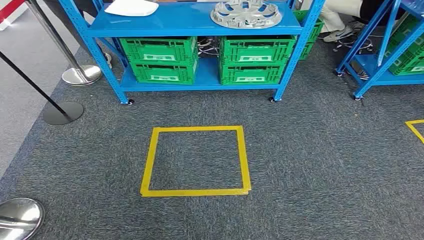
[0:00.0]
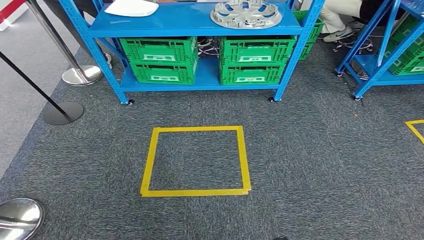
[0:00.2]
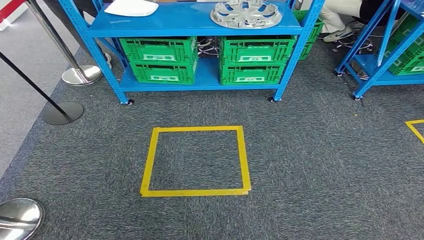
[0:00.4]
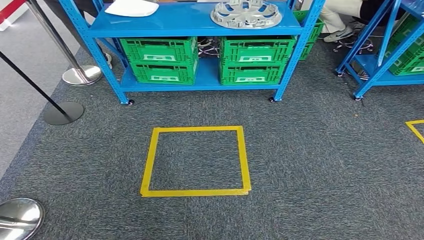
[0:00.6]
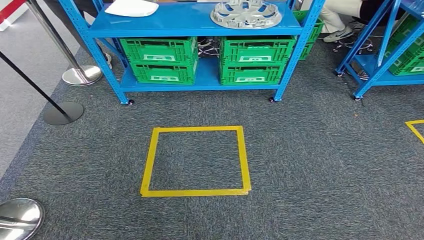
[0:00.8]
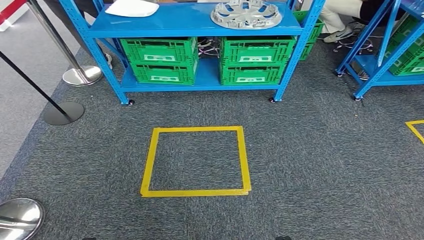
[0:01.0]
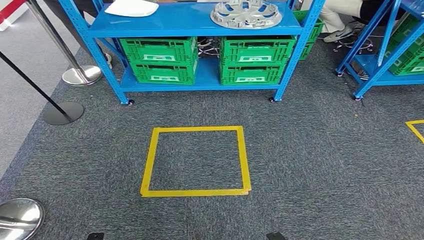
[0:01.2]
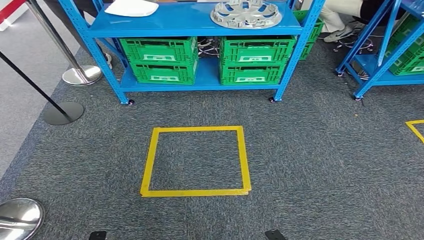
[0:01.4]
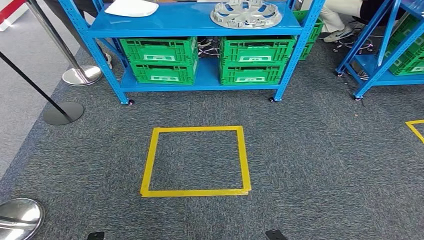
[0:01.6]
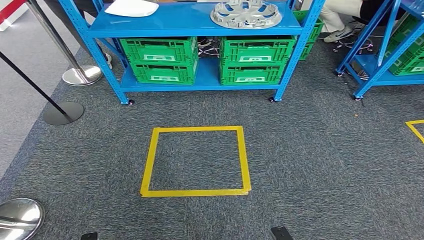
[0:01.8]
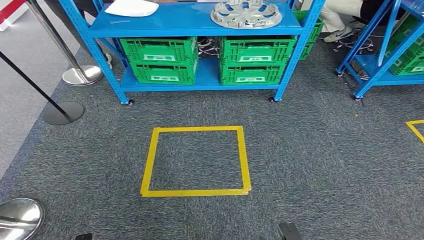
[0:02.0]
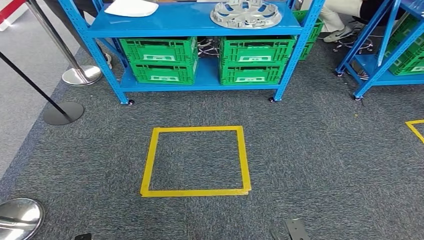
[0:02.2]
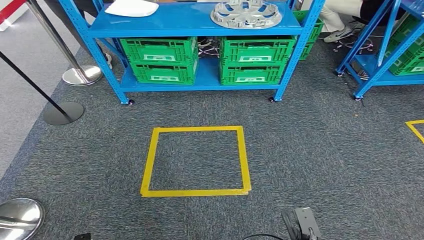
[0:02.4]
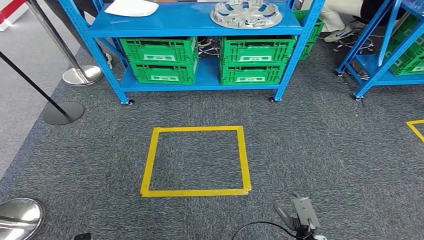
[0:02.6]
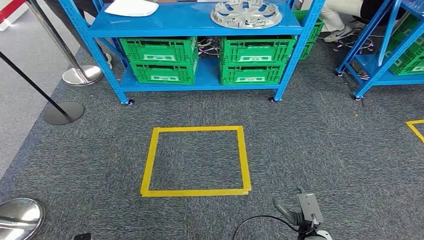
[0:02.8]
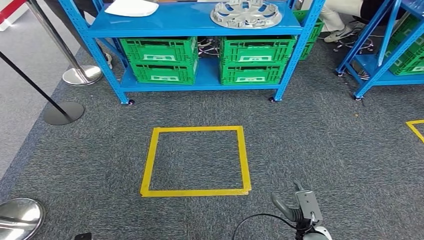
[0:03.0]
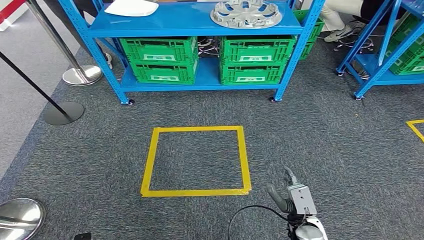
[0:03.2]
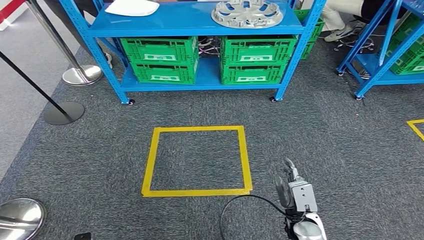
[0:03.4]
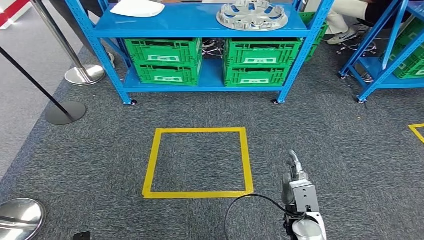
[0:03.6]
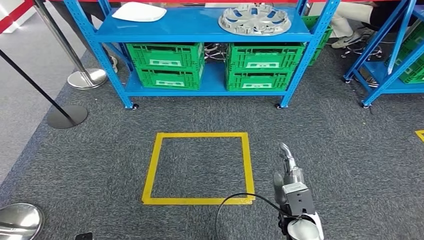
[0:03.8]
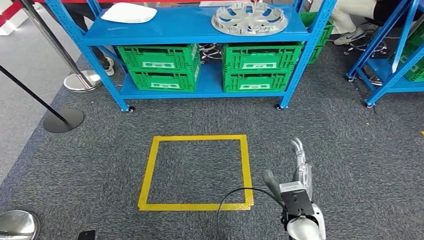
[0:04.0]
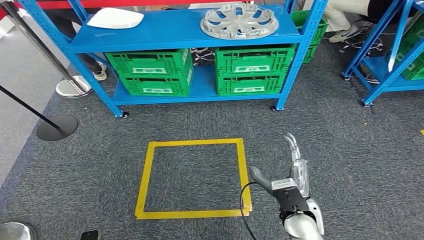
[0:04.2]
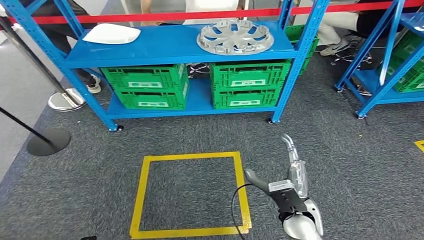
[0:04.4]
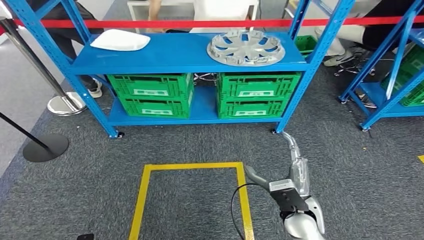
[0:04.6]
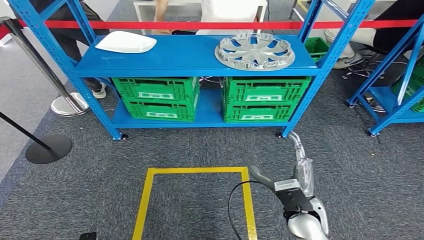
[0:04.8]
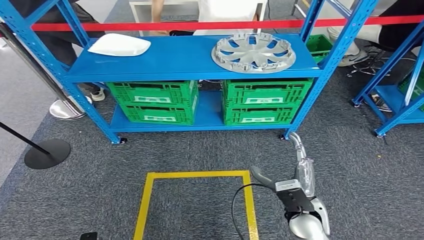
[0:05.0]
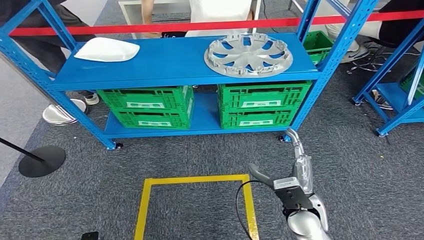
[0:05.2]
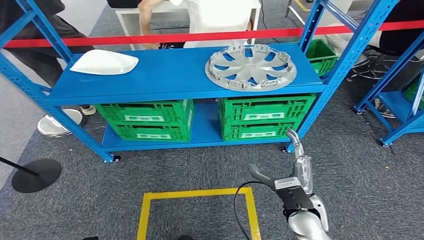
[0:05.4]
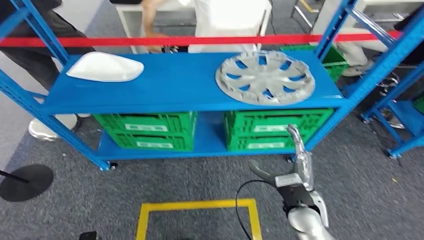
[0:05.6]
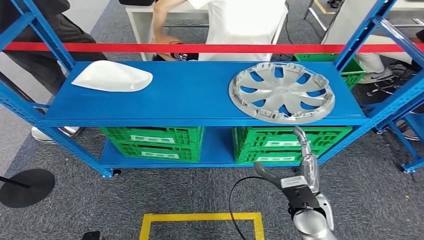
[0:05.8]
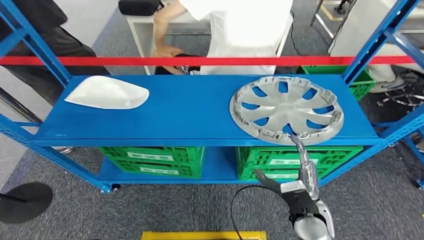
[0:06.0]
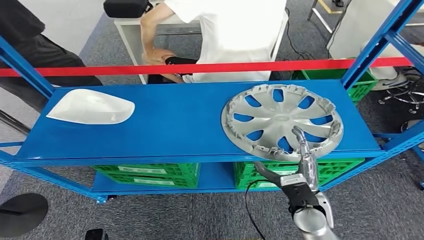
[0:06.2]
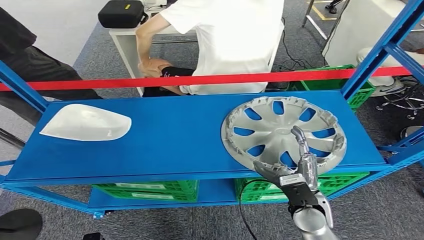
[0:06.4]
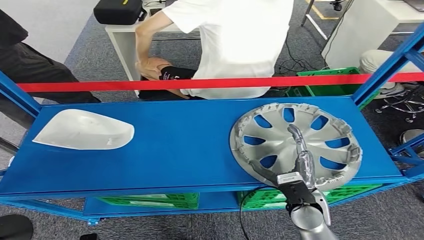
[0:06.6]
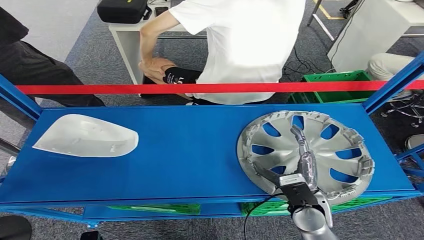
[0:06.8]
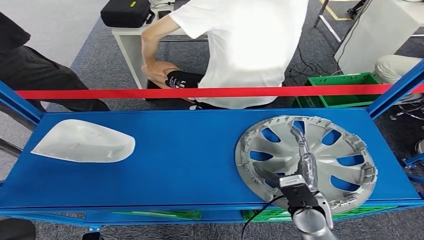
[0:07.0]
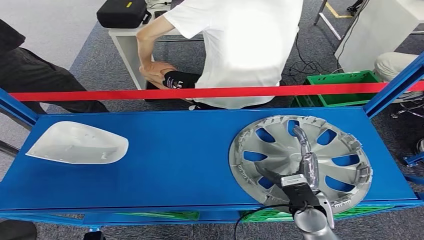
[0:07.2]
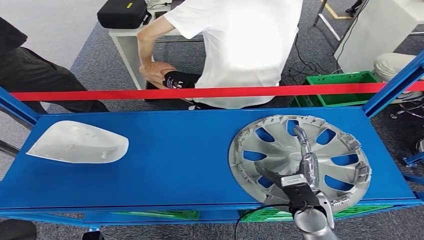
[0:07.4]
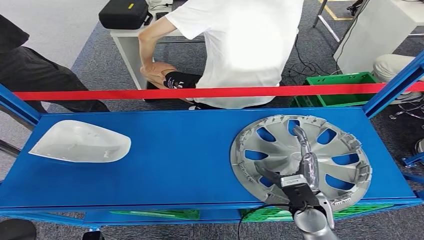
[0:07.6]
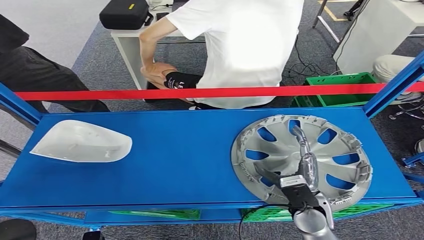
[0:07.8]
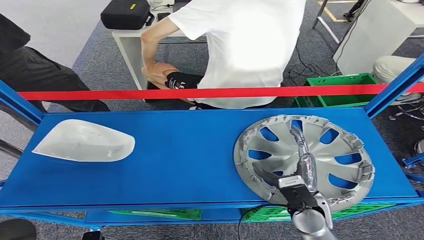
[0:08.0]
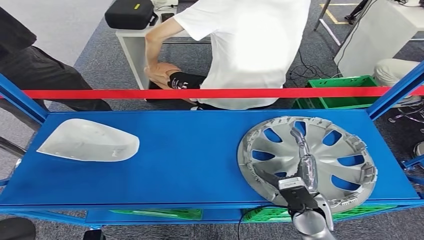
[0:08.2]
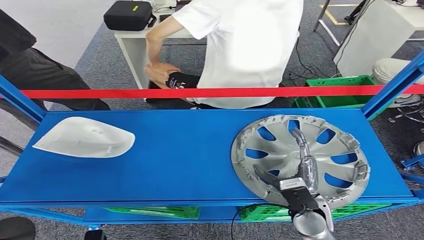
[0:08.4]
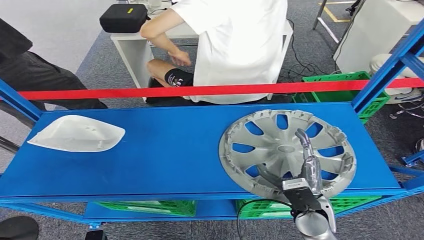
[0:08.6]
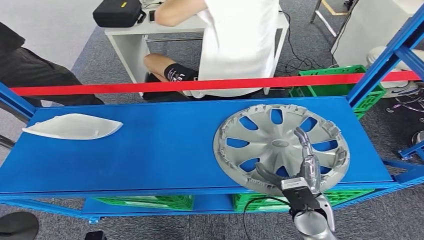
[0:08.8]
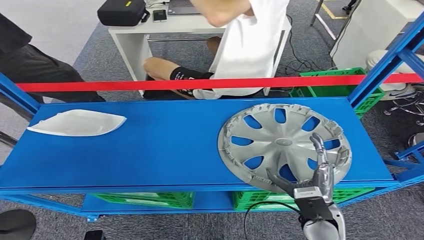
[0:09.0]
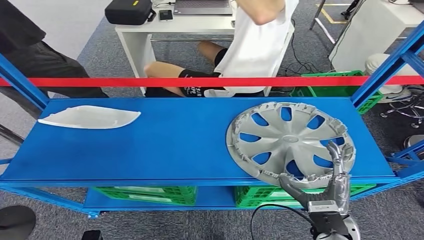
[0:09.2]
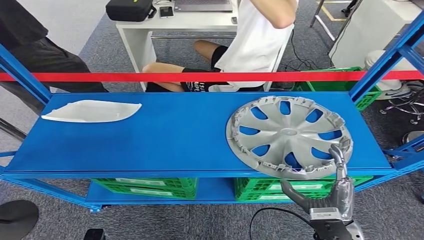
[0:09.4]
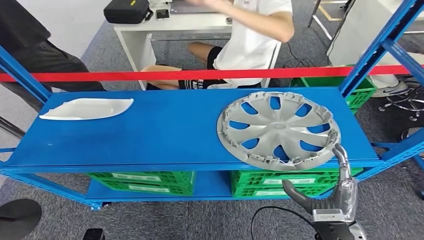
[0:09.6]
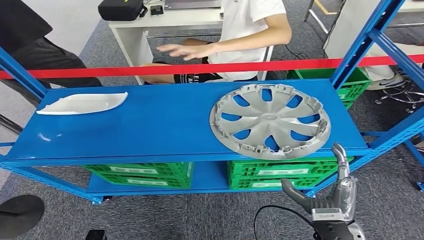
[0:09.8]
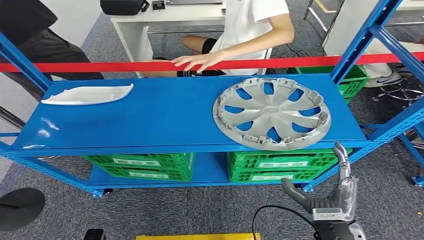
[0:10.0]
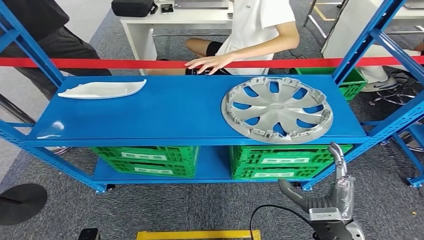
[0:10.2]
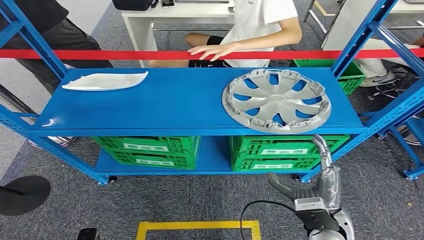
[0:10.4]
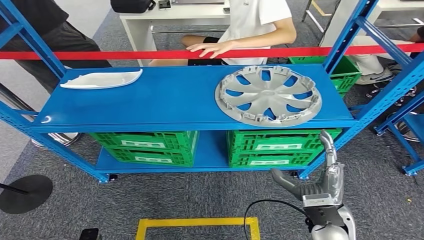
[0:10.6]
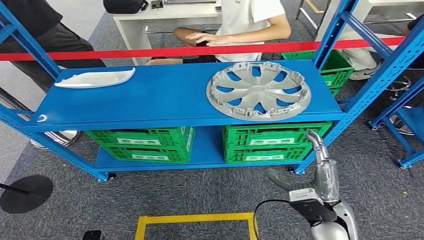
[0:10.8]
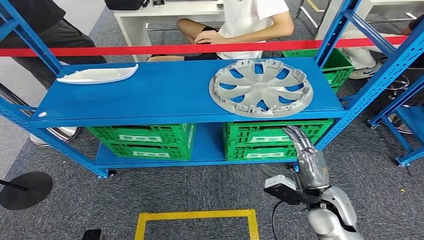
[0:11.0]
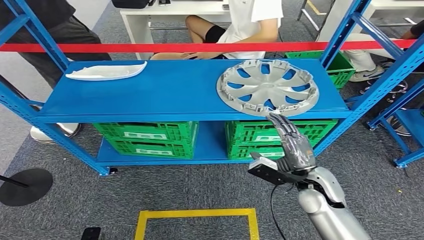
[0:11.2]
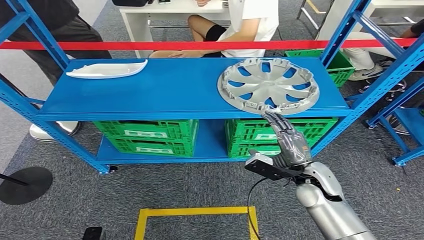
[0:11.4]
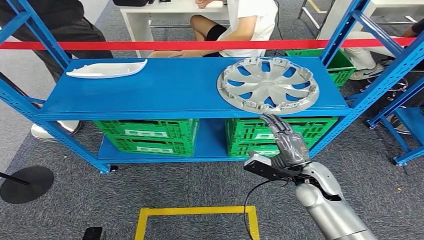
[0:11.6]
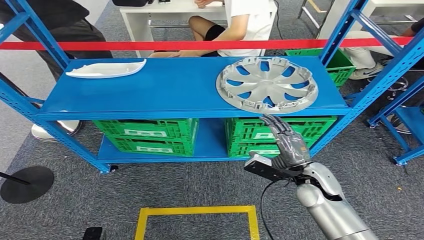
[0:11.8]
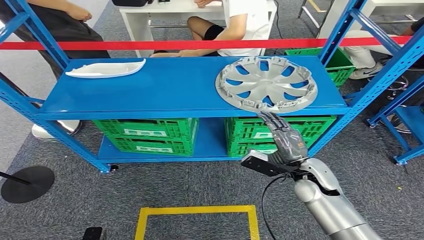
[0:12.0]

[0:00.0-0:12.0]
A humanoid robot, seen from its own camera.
0:01.6 to 0:03.0: The right hand travels forward by some 10 cm.

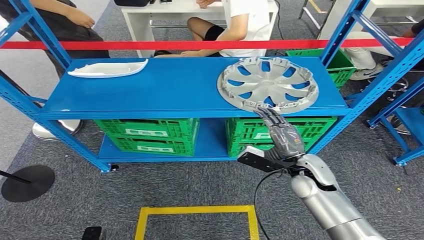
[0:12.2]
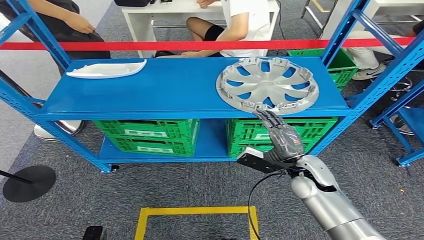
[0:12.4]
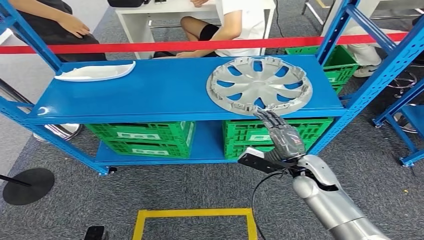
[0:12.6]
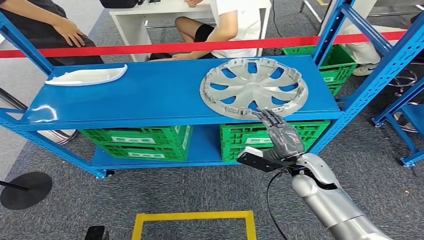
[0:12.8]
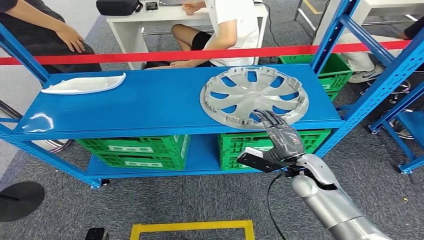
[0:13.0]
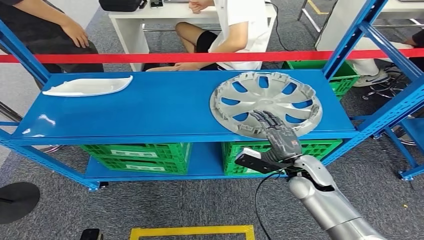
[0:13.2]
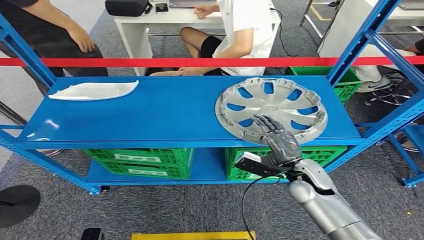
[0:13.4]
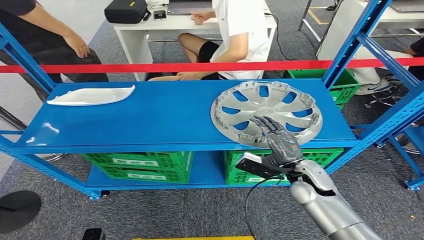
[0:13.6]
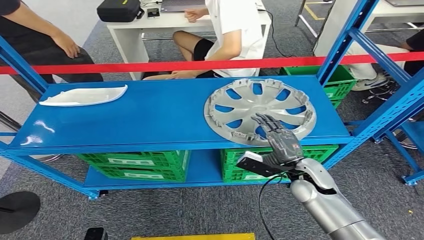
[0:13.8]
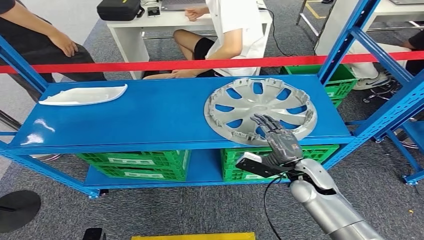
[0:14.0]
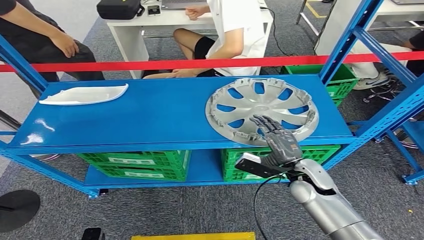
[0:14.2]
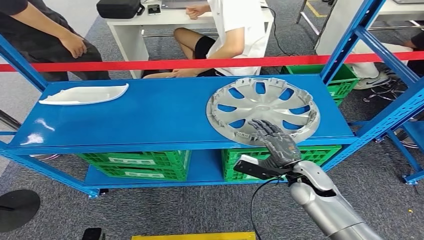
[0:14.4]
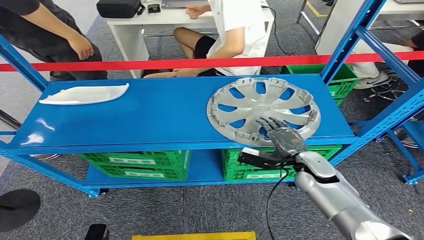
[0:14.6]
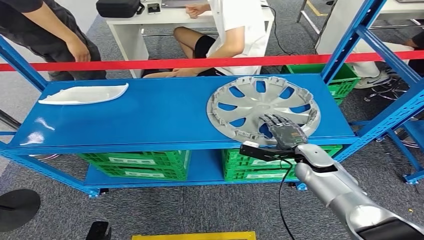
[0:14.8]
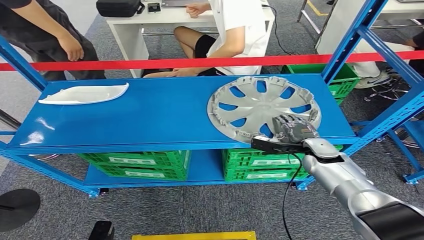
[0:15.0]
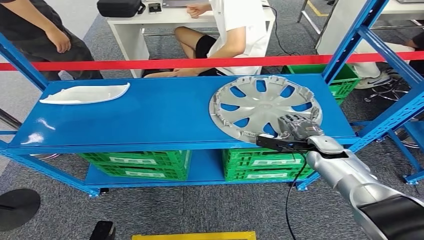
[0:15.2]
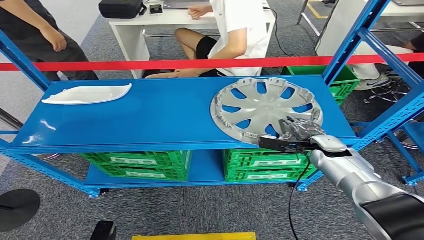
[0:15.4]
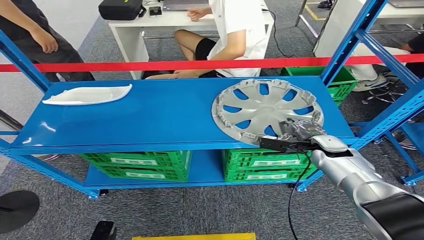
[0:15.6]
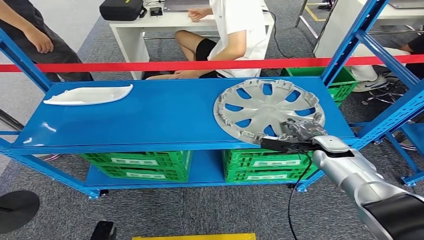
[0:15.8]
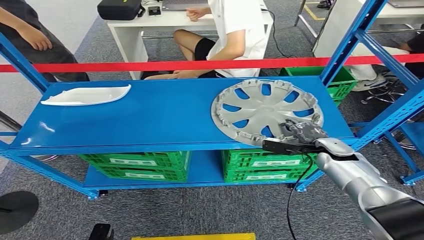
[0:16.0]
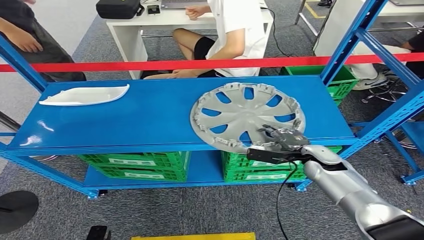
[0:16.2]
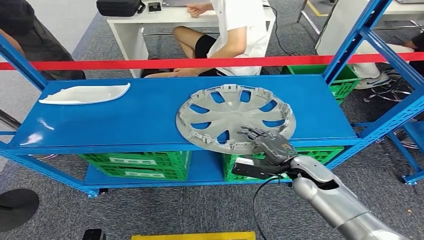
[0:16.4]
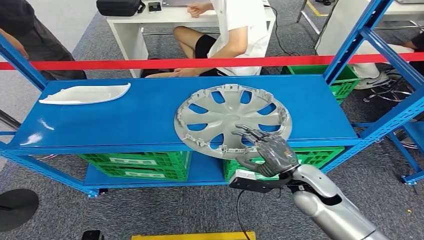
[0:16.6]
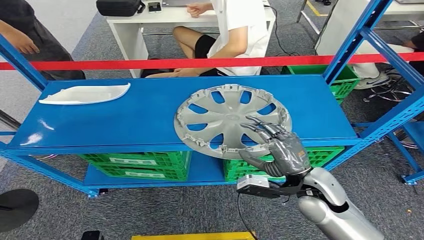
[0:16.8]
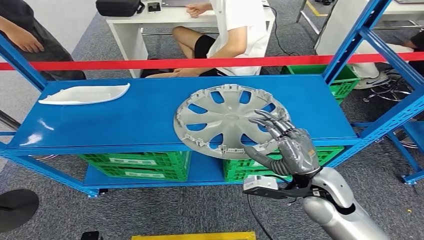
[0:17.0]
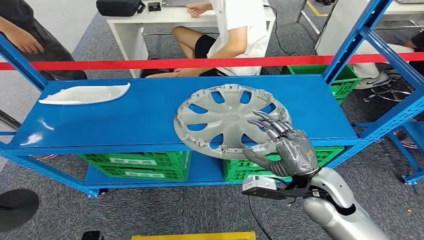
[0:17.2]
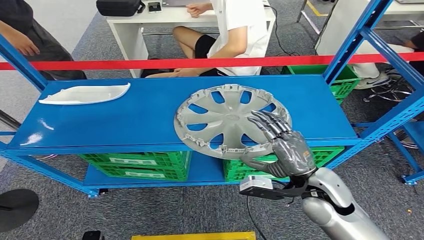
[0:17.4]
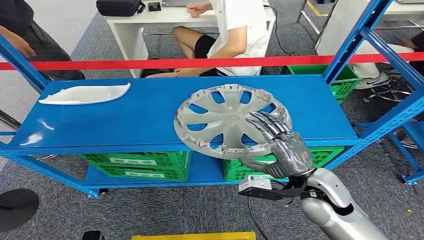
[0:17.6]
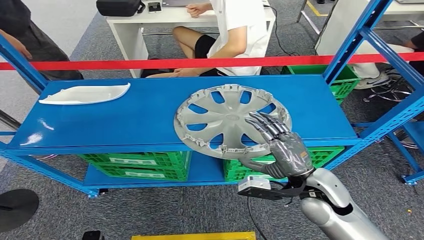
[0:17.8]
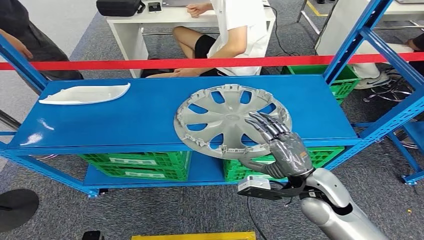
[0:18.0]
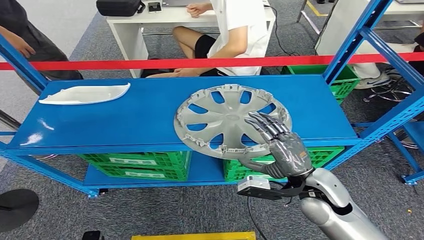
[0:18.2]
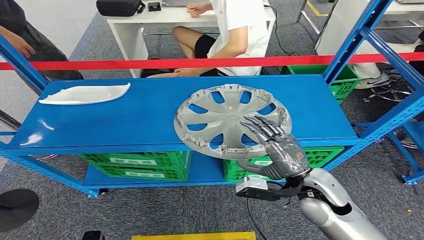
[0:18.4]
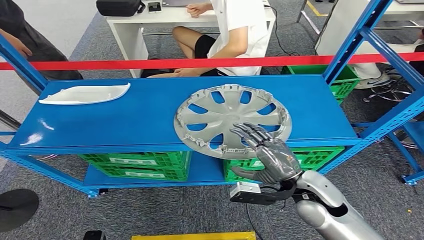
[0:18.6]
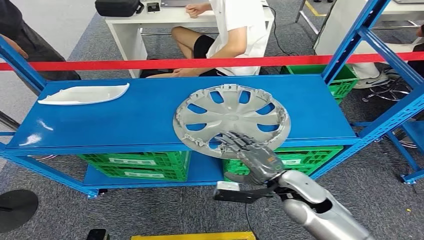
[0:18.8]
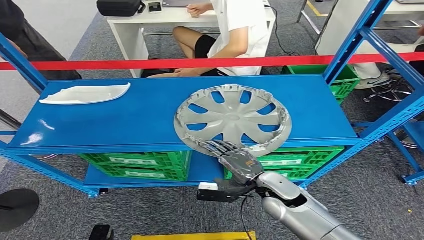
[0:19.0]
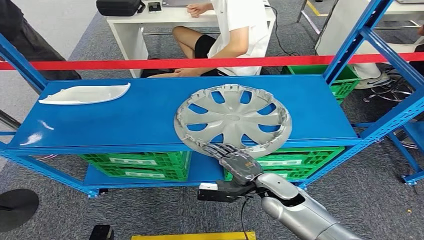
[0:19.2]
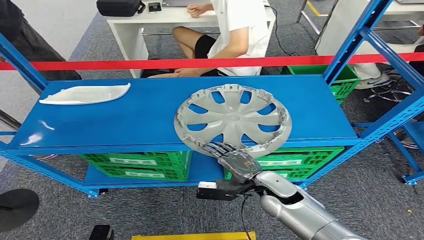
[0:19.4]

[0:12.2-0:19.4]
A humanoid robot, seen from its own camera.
0:16.6 to 0:18.0: The hands stay close to where they were, moving slightly.
0:18.0 to 0:19.4: The right hand travels downward and to the left by approximately 10 cm.
